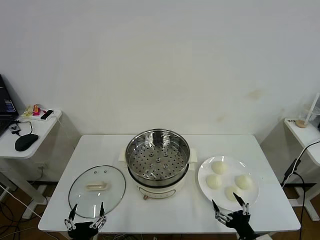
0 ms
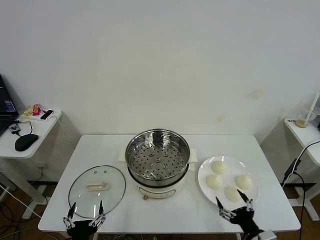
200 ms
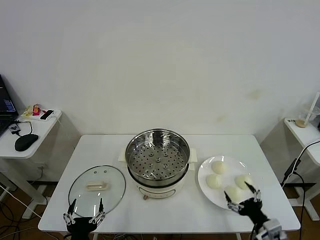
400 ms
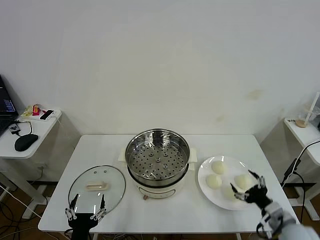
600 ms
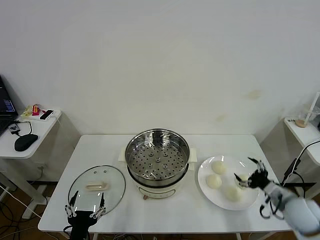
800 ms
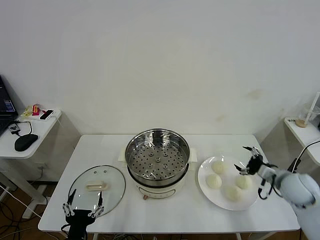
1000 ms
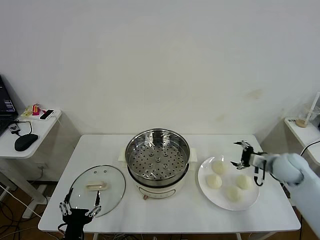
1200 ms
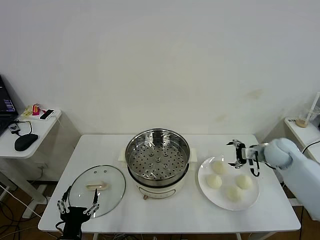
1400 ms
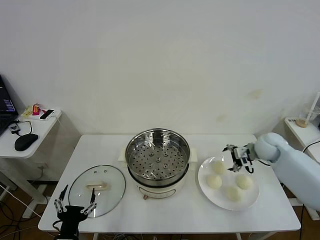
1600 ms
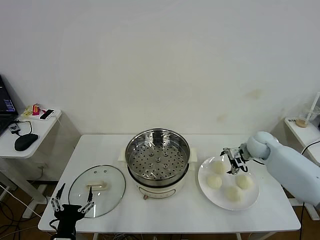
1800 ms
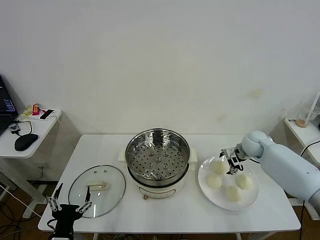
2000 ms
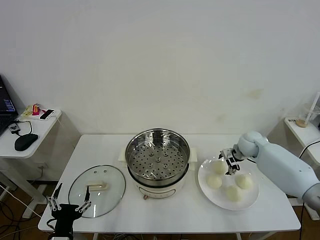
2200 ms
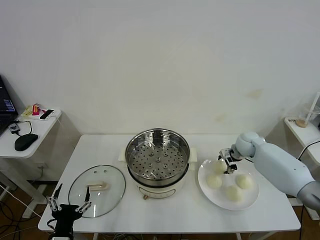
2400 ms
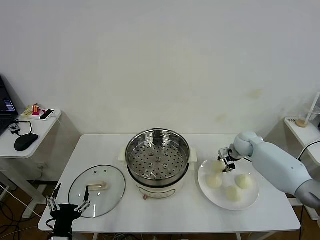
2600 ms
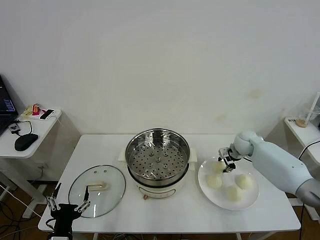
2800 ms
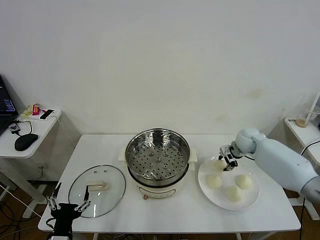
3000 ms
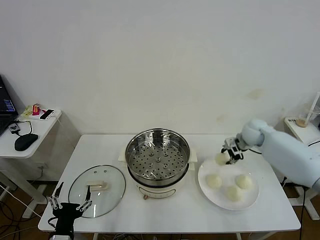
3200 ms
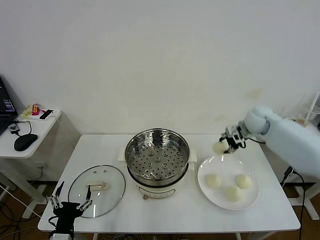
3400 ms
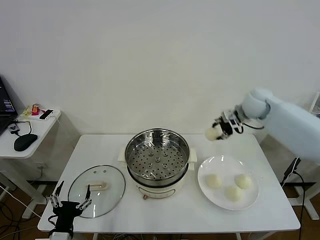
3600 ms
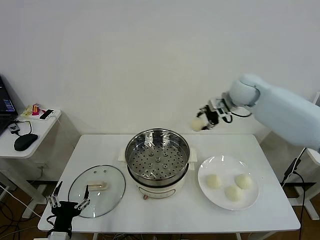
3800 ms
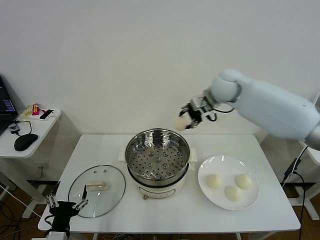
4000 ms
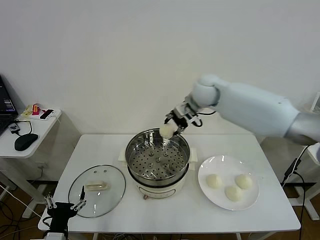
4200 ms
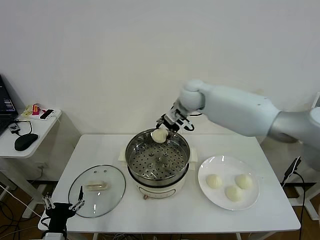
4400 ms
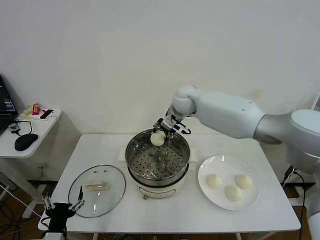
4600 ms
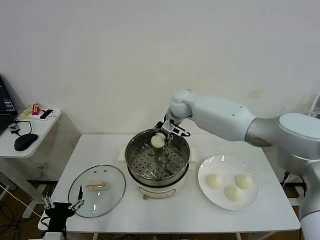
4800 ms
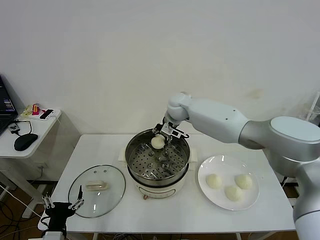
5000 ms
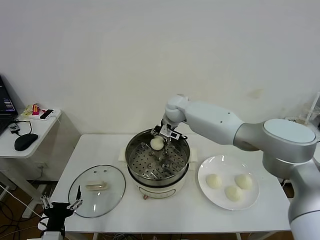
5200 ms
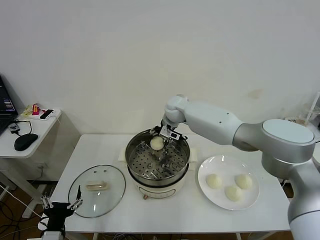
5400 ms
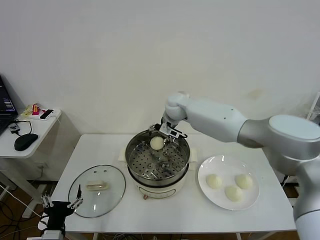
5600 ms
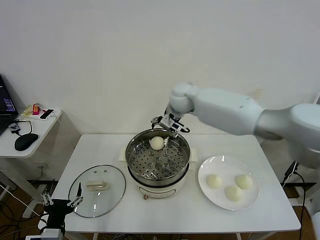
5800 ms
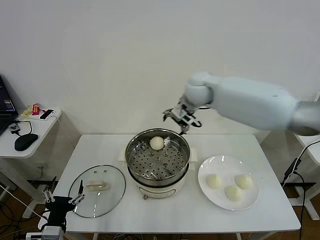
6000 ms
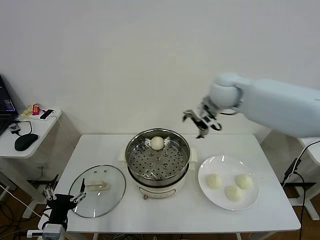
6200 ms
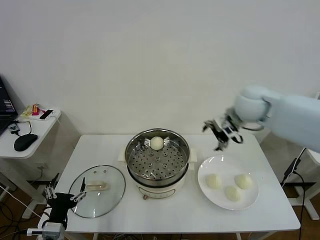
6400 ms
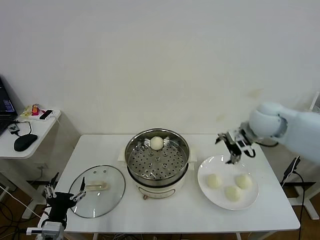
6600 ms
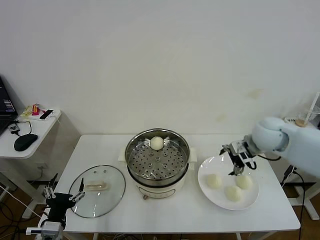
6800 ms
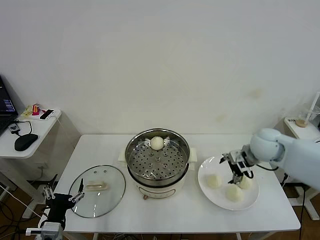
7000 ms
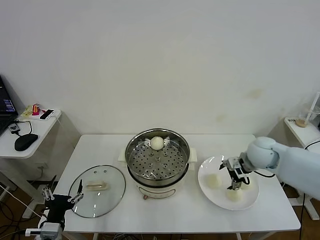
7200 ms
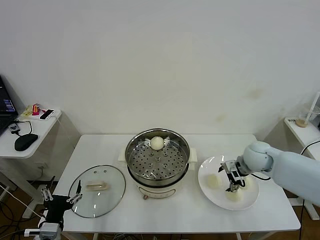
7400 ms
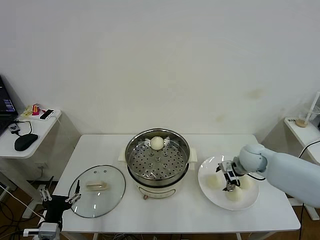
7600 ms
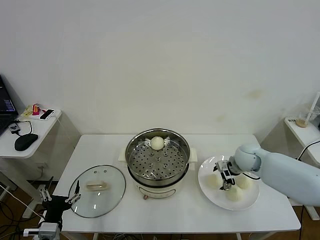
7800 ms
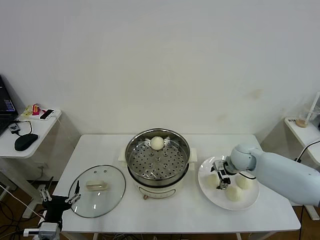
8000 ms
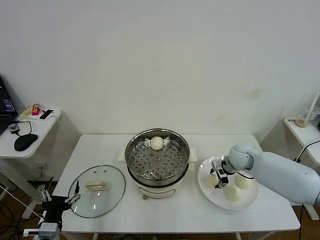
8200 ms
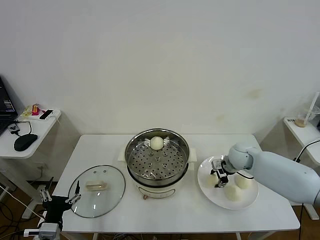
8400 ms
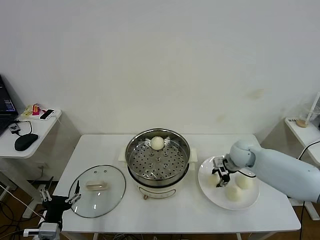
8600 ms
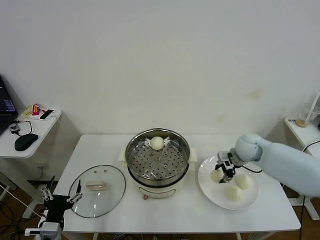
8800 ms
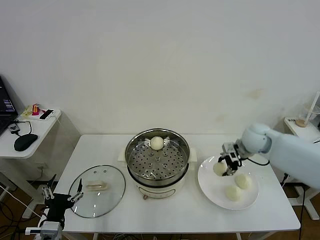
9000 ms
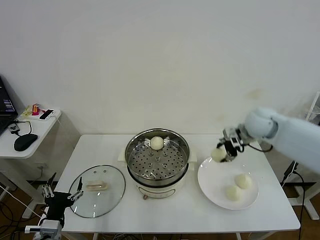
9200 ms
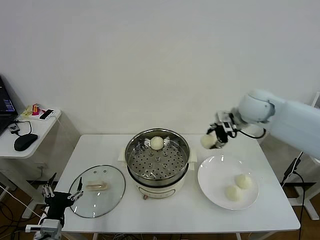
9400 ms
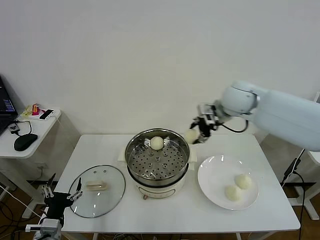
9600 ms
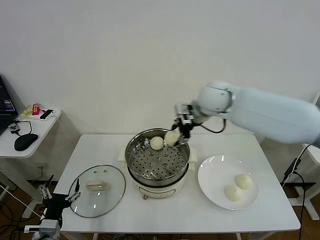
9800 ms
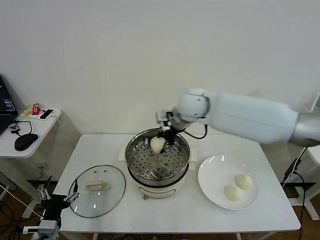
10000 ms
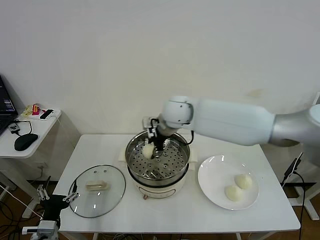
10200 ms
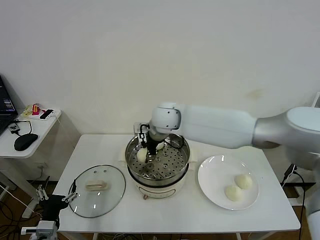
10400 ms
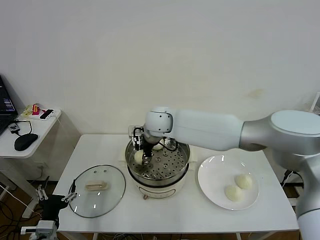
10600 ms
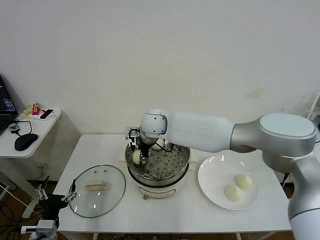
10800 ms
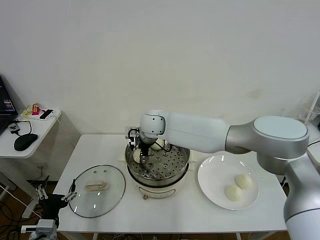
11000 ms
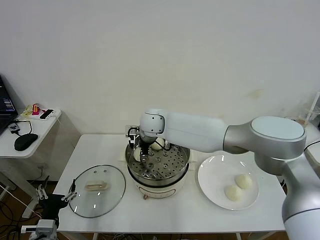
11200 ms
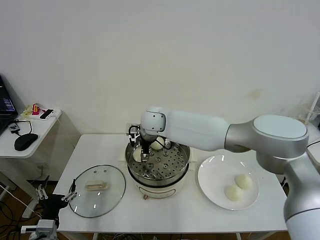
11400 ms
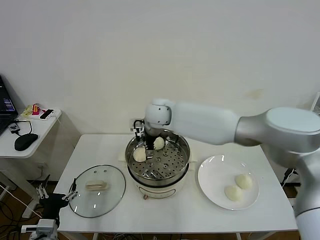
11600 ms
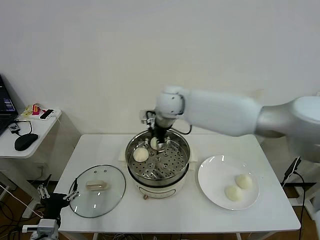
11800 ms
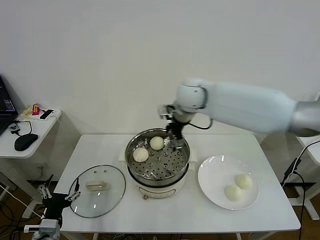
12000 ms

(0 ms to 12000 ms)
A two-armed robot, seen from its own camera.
Task of the whole recording: take steamed baozi put them in steamer then cover it.
Step, 0 ms - 2600 ms: Grasp the baozi in the plate with right gripper.
Step, 2800 ms - 5600 ms: Place the baozi on the steamer with right gripper.
Step, 5800 ms - 8200 ms: Grasp the baozi in the plate with right gripper.
Step, 8600 ms - 11400 ms: Place the baozi on the steamer with right gripper.
1600 ms - 3000 ms: The right gripper shifts by approximately 5 cm, and closes up.
3000 ms - 4400 ms: The right gripper moves to the left and upward, some 30 cm.
4400 ms - 6000 ms: The right gripper goes roughly 10 cm to the right and upward, and opens up.
6000 ms - 7600 ms: The right gripper shifts roughly 30 cm downward and to the right.
7600 ms - 9000 ms: The right gripper moves upward, roughly 10 cm, and closes up.
9000 ms - 10400 ms: The right gripper goes some 30 cm to the left.
10400 ms - 12000 ms: The right gripper is displaced to the right and upward by roughly 15 cm, and opens its fingers.

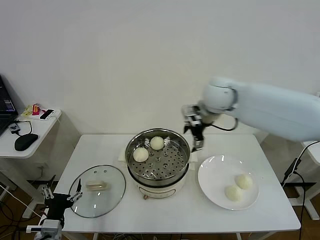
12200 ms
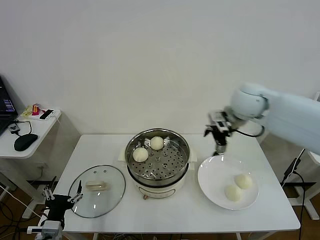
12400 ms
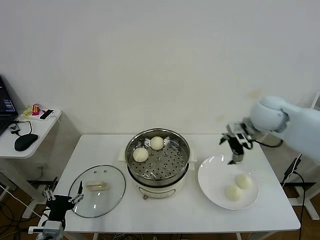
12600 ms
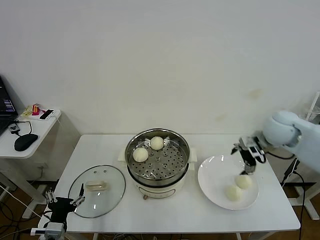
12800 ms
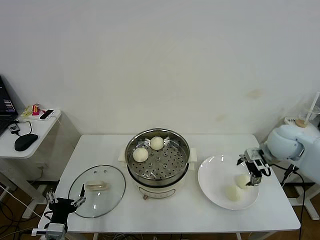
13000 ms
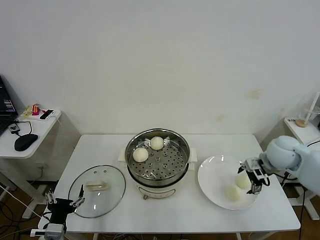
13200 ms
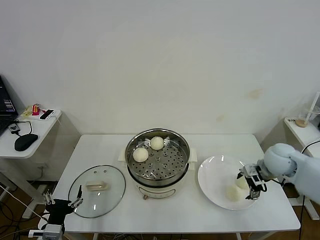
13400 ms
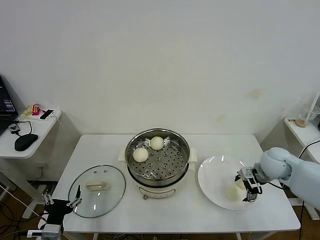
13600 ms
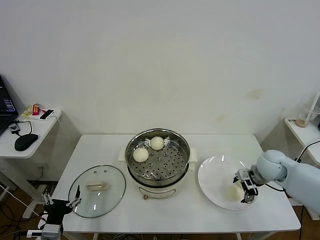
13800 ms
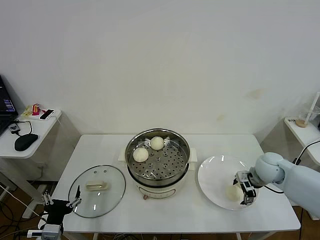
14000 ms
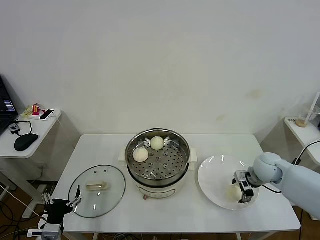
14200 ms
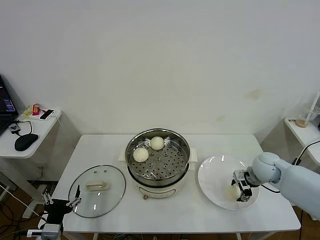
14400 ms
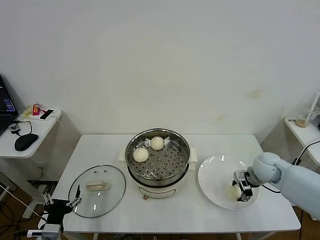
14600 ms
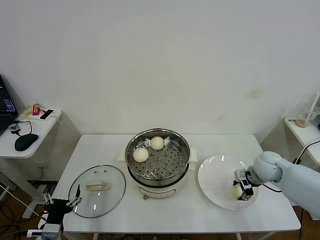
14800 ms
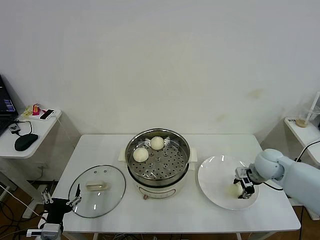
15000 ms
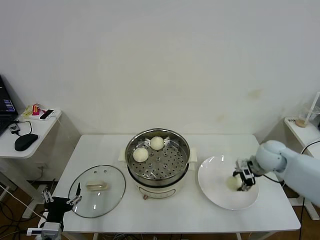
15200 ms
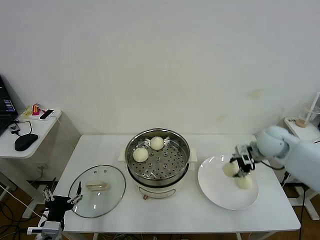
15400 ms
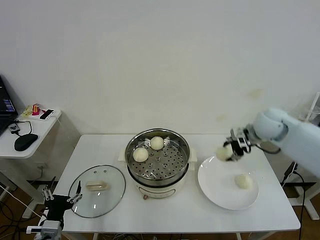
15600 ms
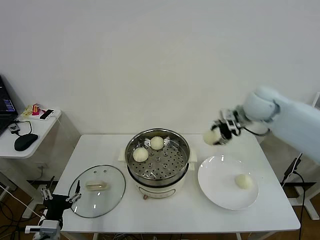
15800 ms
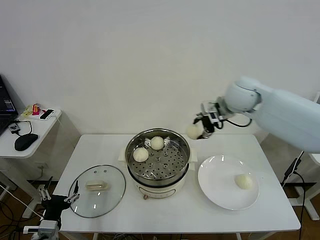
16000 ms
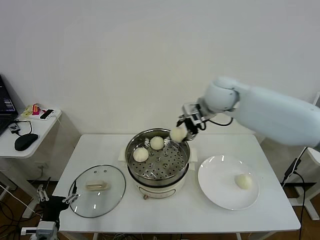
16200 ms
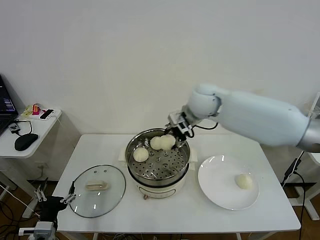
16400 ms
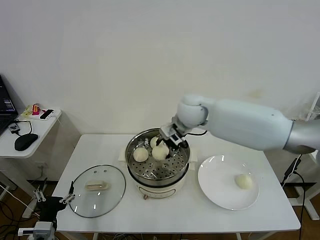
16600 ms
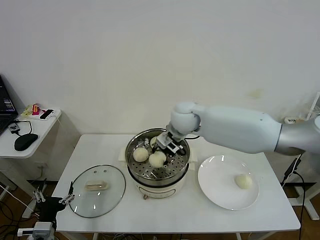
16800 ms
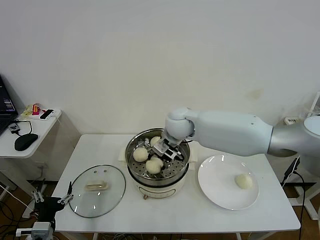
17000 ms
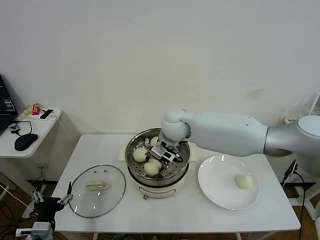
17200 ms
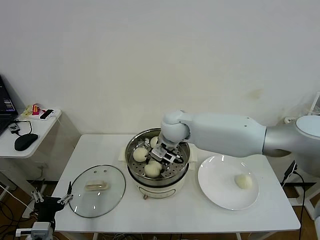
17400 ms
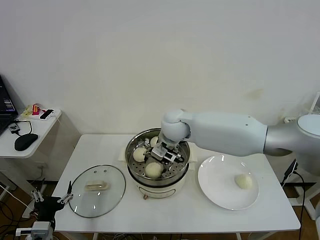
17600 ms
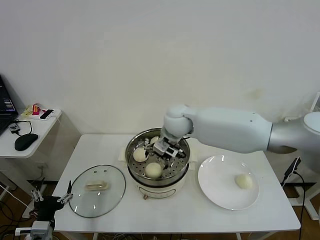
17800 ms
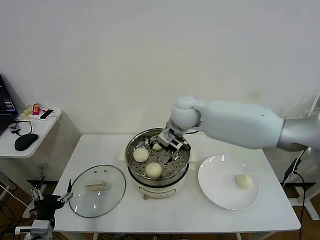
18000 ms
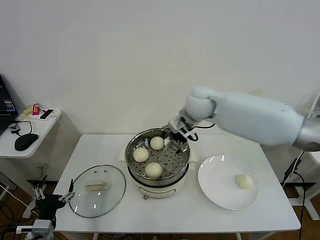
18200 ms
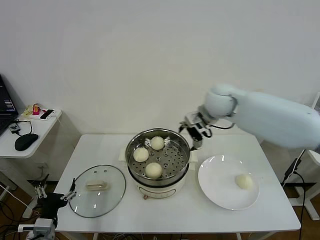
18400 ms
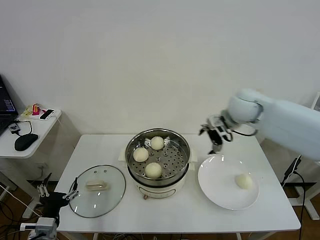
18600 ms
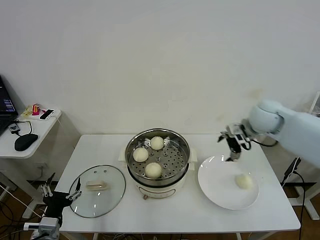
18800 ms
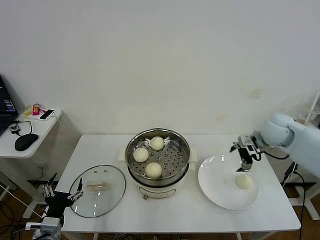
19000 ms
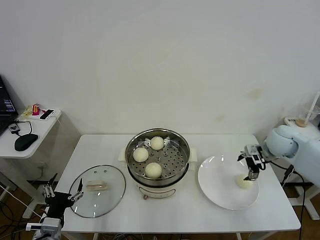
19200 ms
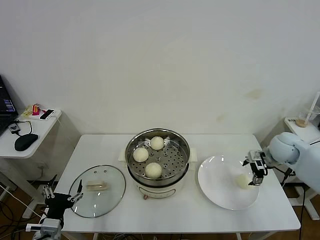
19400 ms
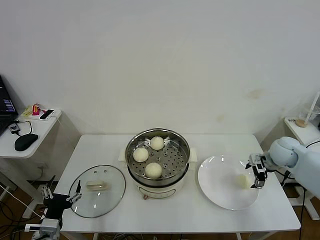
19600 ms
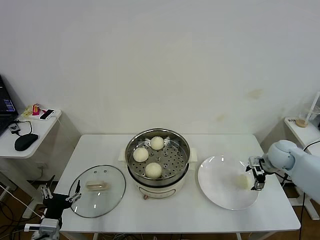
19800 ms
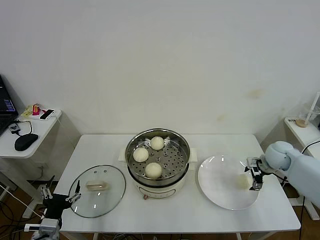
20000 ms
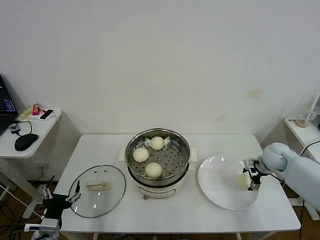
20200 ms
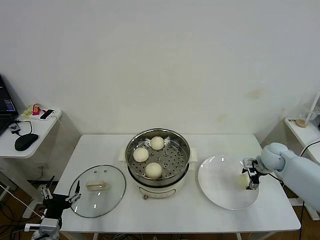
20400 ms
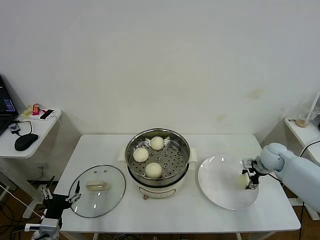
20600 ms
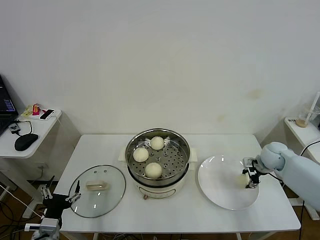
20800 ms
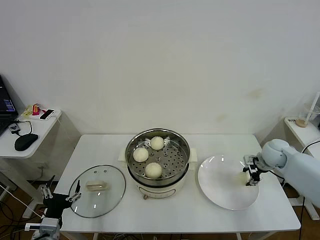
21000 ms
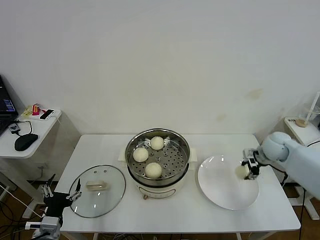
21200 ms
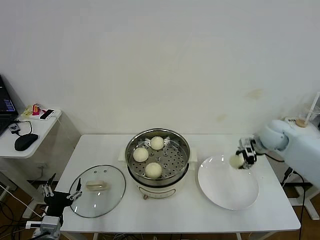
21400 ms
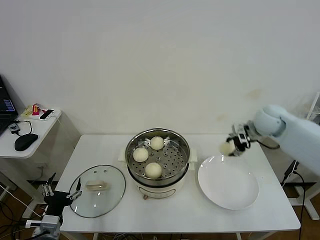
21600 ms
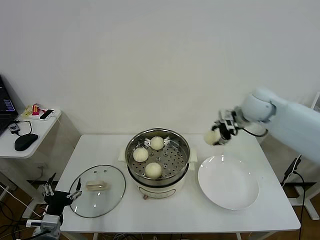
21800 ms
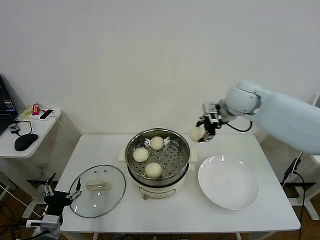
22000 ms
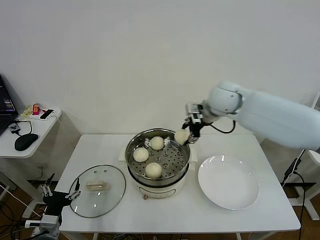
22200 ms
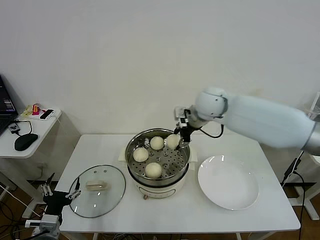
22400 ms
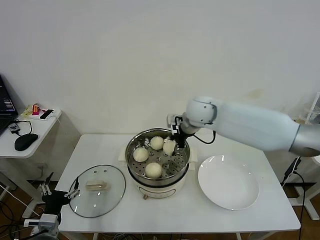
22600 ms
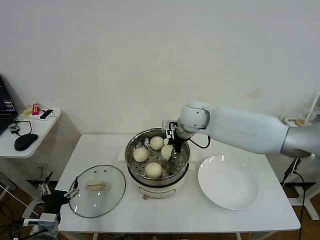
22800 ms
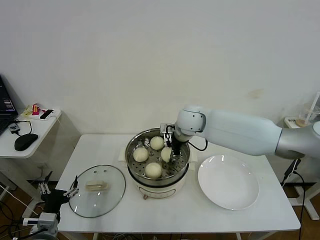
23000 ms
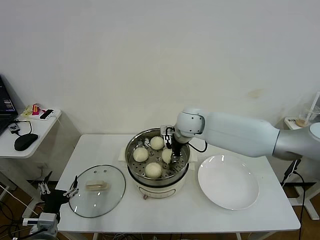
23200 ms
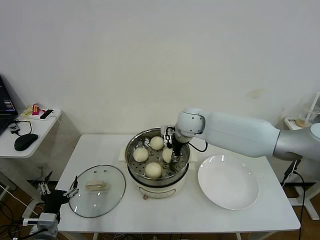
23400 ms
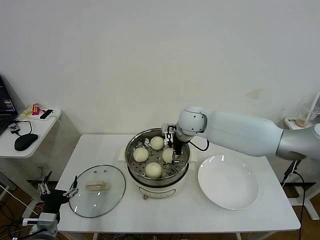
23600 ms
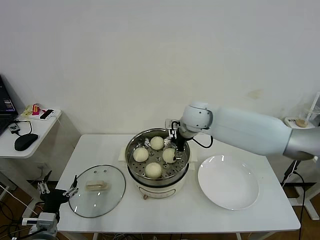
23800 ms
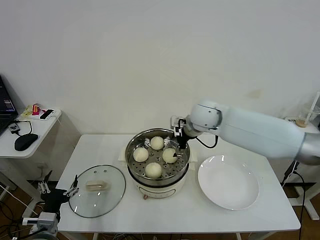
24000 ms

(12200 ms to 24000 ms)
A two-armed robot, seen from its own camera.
Task of the whole recording: take steamed baozi put them in steamer then cover it.
Step, 12200 ms - 14600 ms: Grasp the baozi in the plate with right gripper.
Step, 15000 ms - 17600 ms: Place the baozi on the steamer with right gripper.
Step, 18000 ms - 20800 ms: Grasp the baozi in the plate with right gripper.
Step, 21000 ms - 23600 ms: Place the baozi on the steamer with right gripper.
12200 ms - 13600 ms: The right gripper goes approximately 30 cm downward, to the right and backward.
13600 ms - 15200 ms: The right gripper closes its fingers.
15200 ms - 16600 ms: The right gripper moves to the left and upward, roughly 30 cm.
16600 ms - 18200 ms: The right gripper shifts by roughly 5 cm, and opens up.
18200 ms - 19600 ms: The right gripper heads to the right and downward, covering roughly 35 cm.
19600 ms - 21000 ms: The right gripper closes its fingers.
21000 ms - 22600 ms: The right gripper moves to the left and upward, about 35 cm.
22600 ms - 24000 ms: The right gripper opens its fingers.
